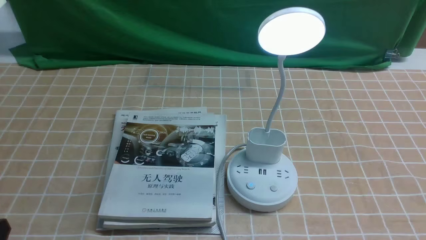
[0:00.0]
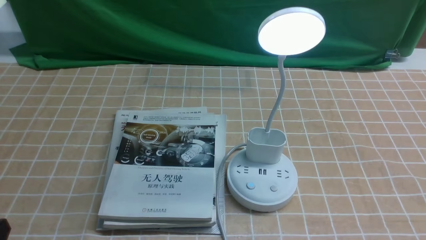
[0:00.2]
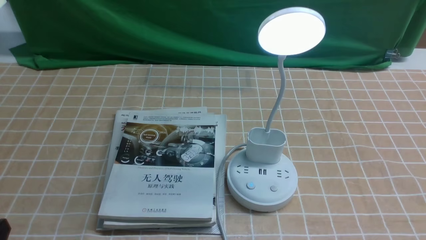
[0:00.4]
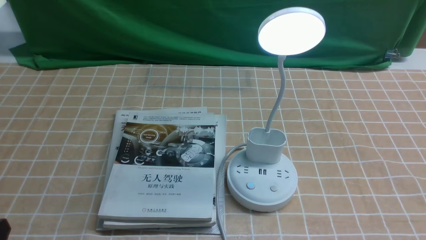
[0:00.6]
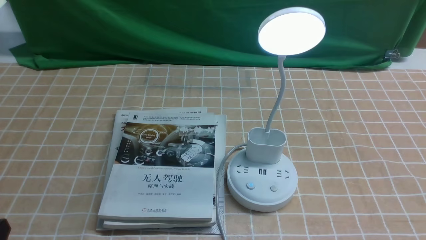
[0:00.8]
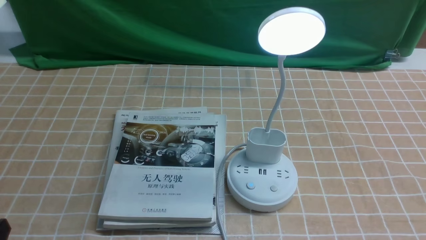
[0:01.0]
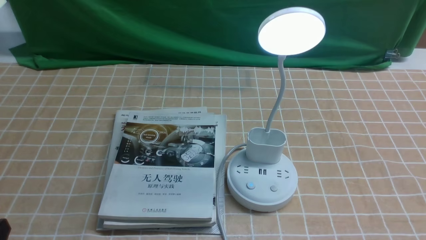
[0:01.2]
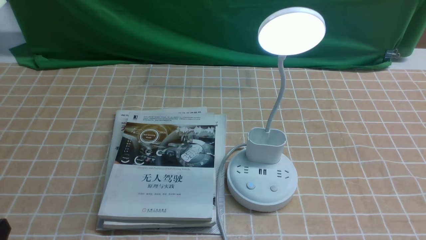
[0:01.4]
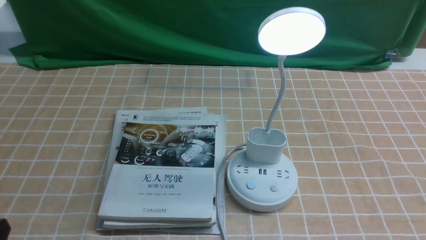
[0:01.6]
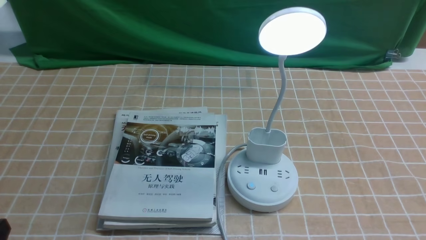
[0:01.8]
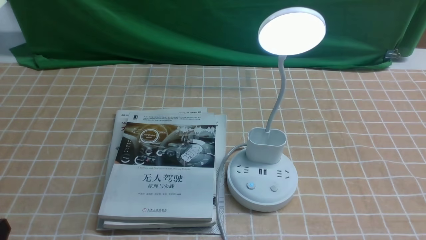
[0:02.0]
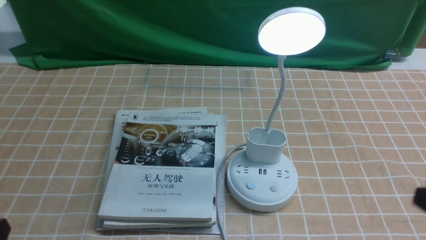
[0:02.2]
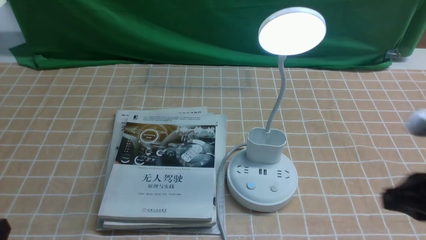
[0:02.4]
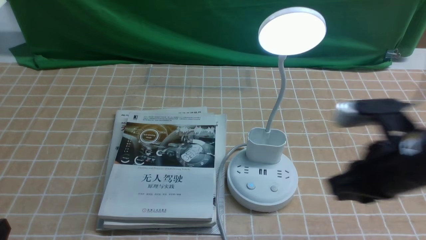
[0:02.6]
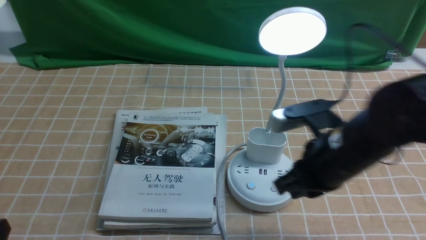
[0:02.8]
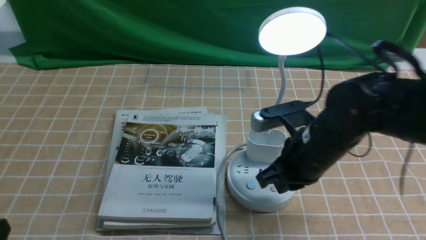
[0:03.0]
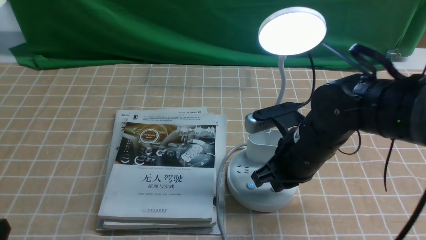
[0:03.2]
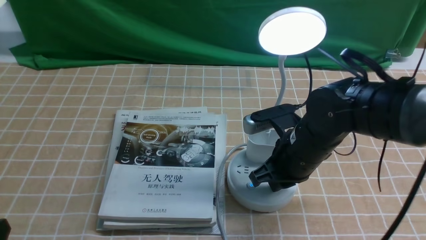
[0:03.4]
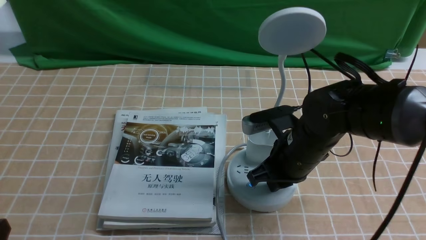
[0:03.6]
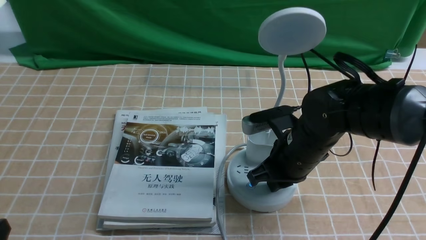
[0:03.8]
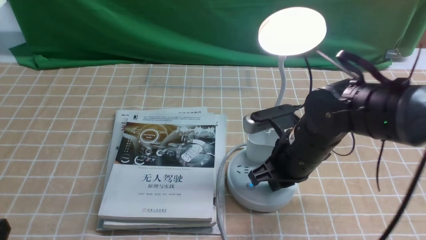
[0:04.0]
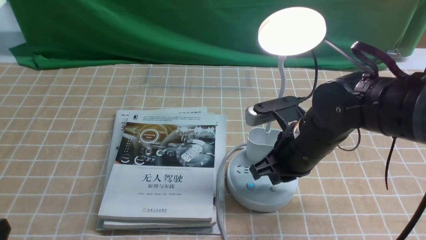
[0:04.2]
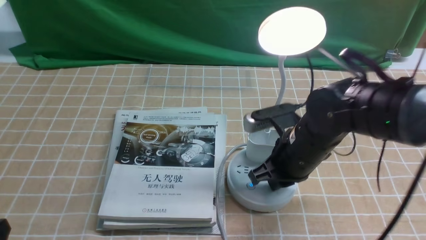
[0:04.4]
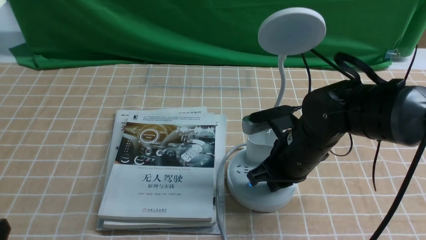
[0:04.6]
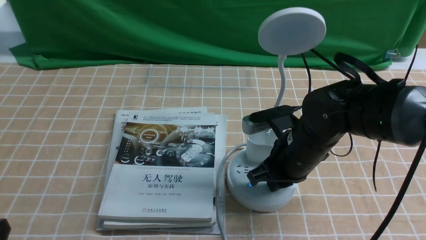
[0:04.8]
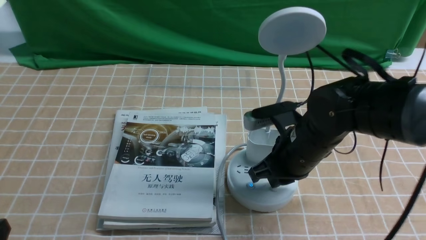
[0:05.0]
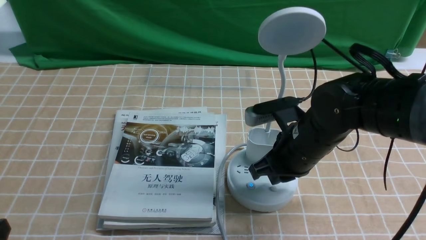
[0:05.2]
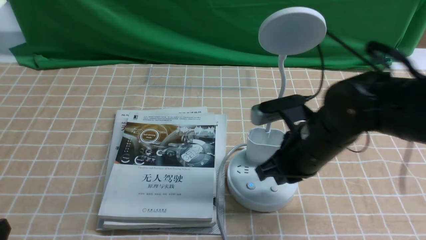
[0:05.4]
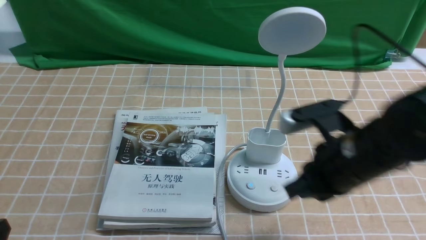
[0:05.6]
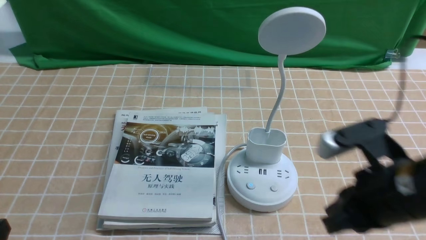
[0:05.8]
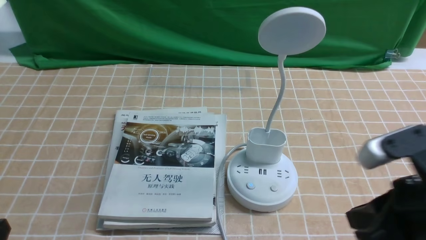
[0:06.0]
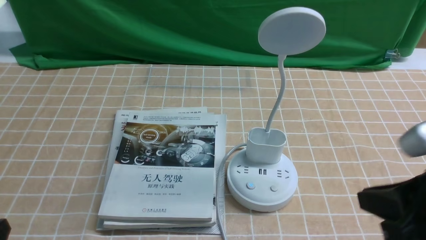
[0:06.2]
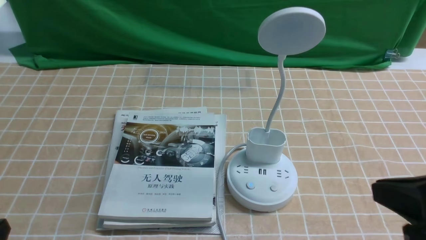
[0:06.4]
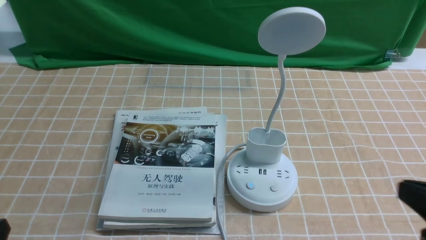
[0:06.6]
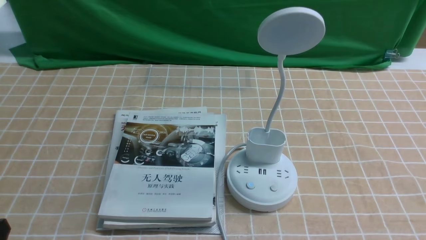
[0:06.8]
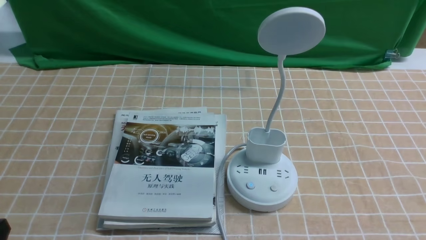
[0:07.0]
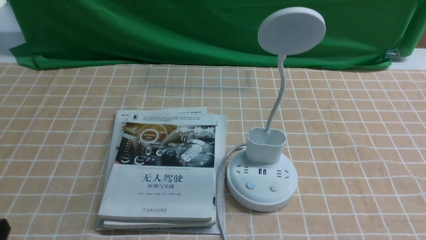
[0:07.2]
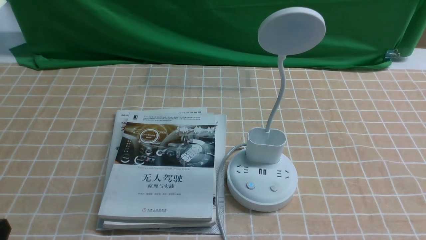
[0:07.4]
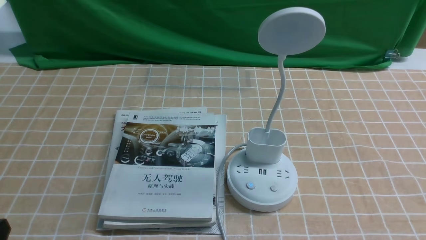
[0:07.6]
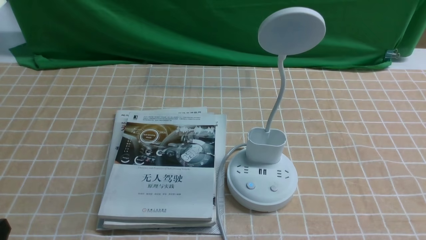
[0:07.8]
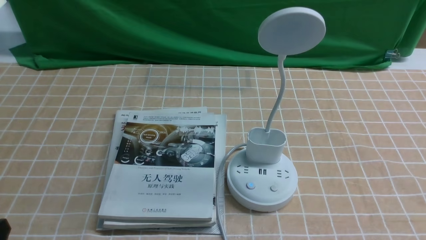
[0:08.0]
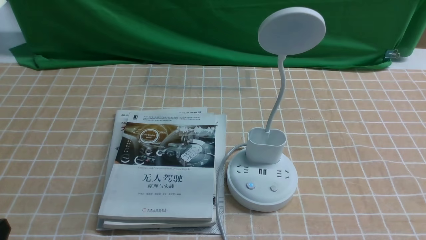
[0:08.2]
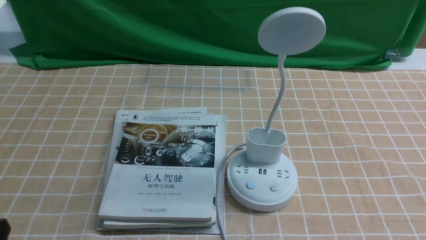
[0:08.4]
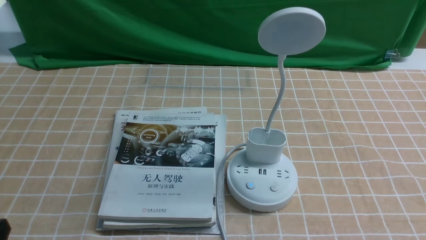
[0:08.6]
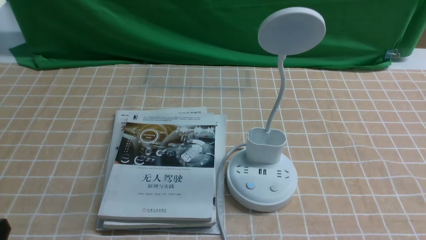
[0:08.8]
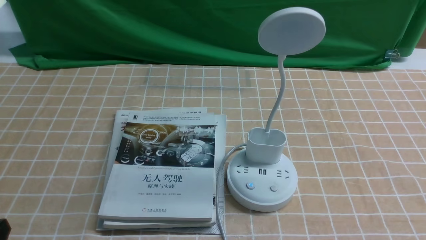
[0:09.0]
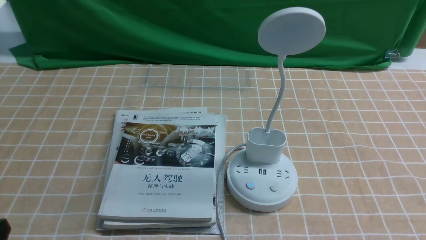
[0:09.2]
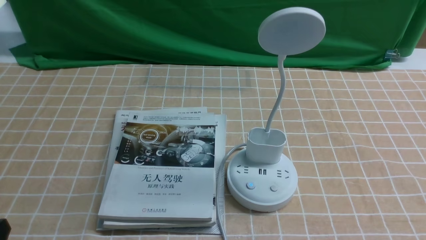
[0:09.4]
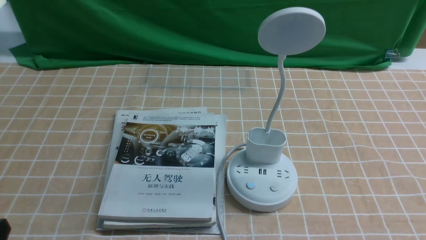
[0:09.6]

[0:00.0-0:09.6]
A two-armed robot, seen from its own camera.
Task of the whole recording: turn off the desk lamp on the light coffee tablecloth by hand.
Step, 0:00.0 to 0:05.2: use the right arm to press the button switch on the lamp holder.
0:01.6 to 0:03.2: The right gripper moves forward and to the left, approximately 30 cm, and closes up.
0:03.2 to 0:04.8: The grippers stay close to where they were, moving slightly.
0:04.8 to 0:06.4: The right gripper is displaced backward, to the right and upward by some 25 cm.
0:06.4 to 0:08.0: The right gripper goes approximately 15 cm downward, to the right and backward.

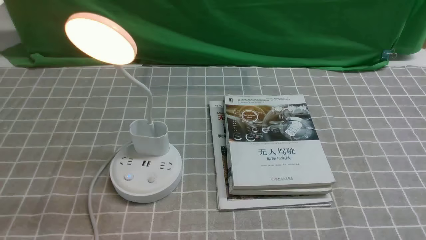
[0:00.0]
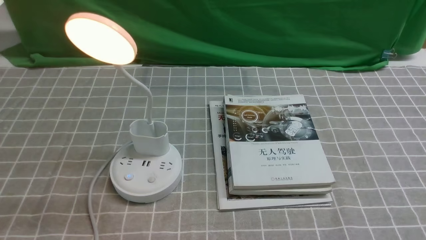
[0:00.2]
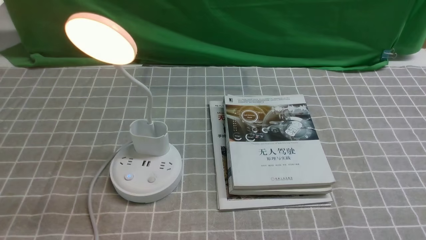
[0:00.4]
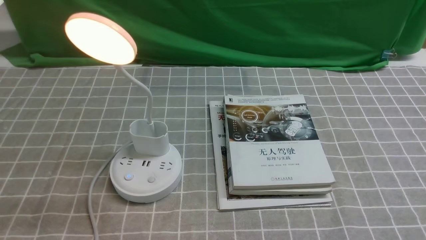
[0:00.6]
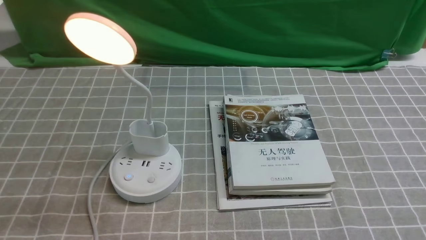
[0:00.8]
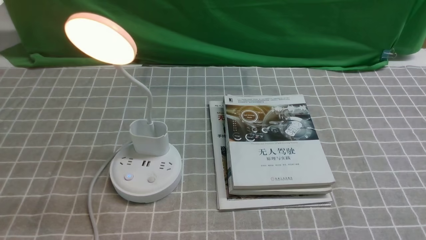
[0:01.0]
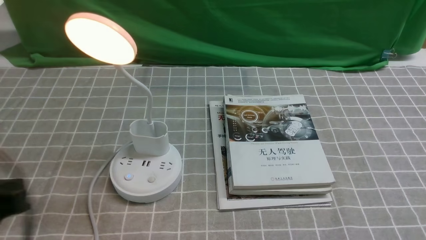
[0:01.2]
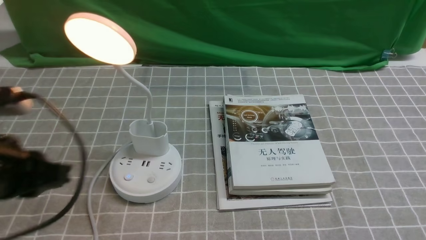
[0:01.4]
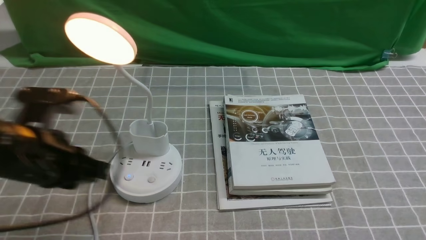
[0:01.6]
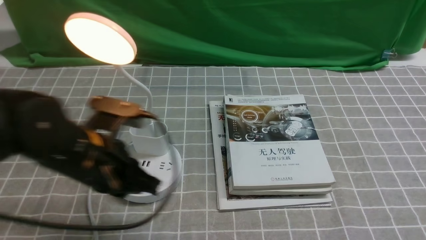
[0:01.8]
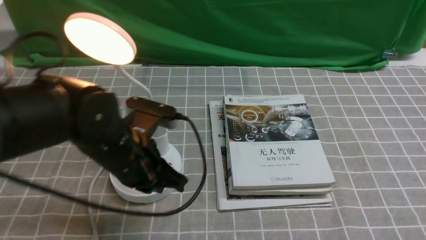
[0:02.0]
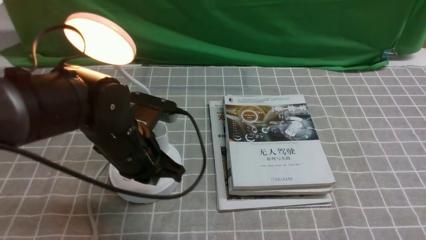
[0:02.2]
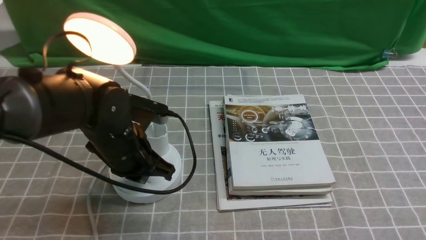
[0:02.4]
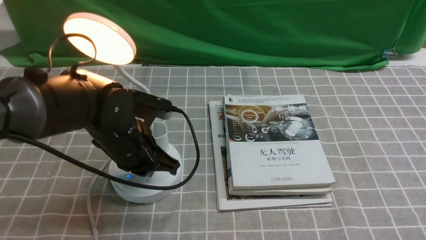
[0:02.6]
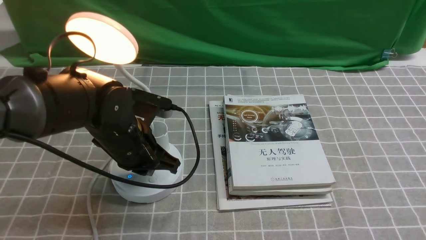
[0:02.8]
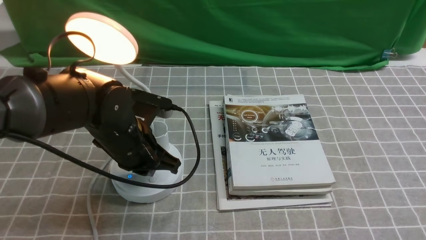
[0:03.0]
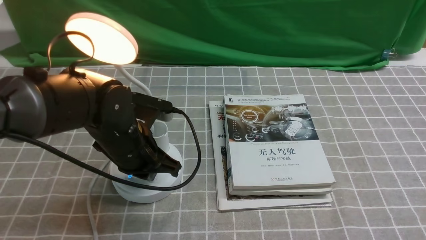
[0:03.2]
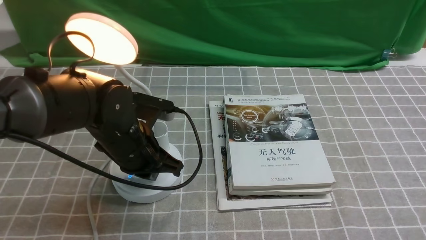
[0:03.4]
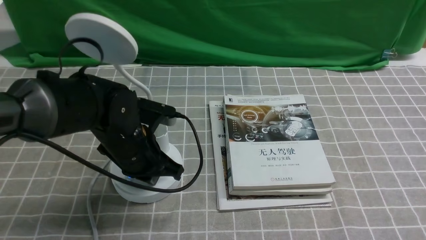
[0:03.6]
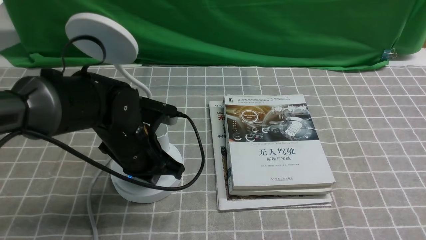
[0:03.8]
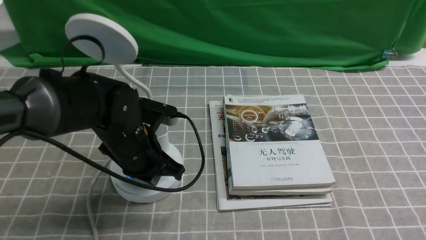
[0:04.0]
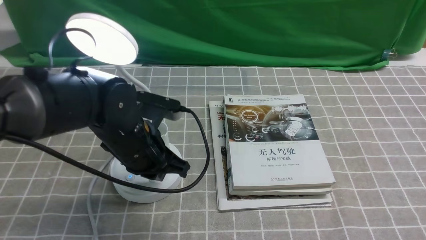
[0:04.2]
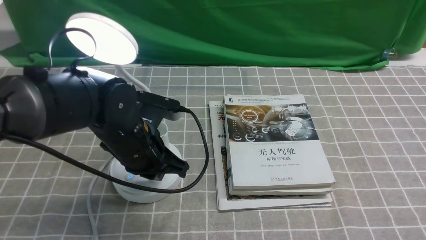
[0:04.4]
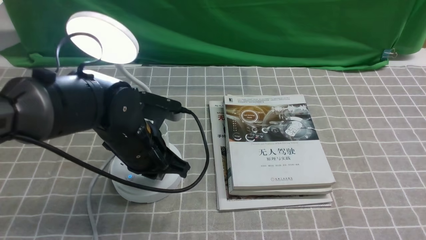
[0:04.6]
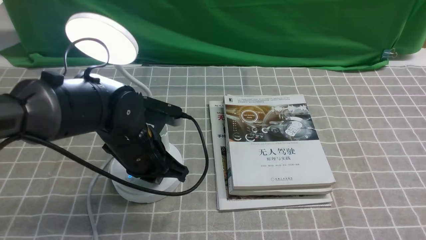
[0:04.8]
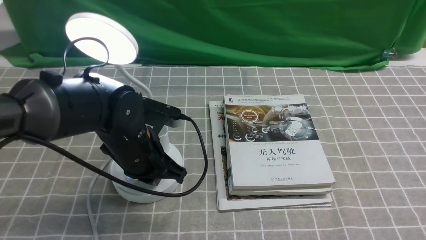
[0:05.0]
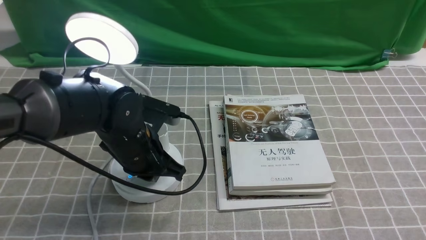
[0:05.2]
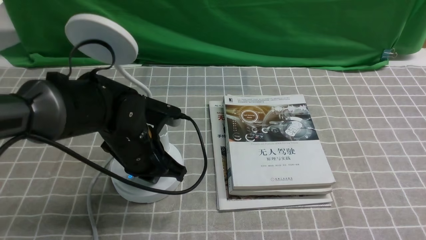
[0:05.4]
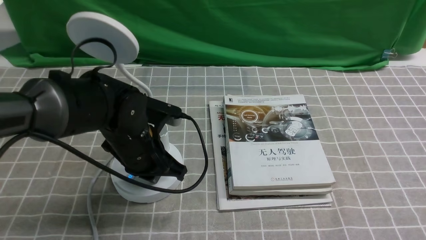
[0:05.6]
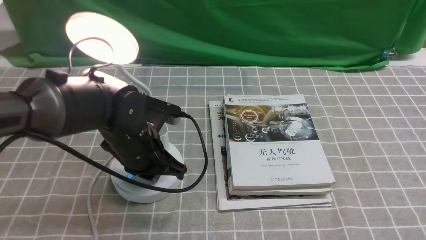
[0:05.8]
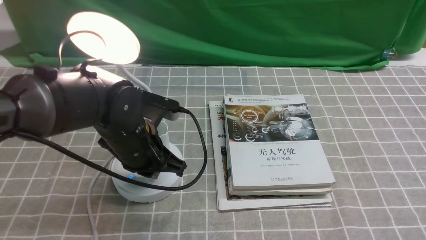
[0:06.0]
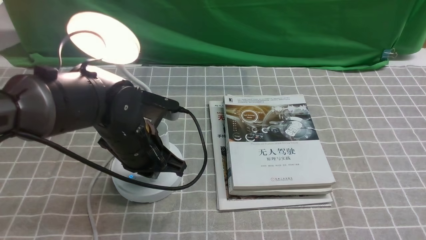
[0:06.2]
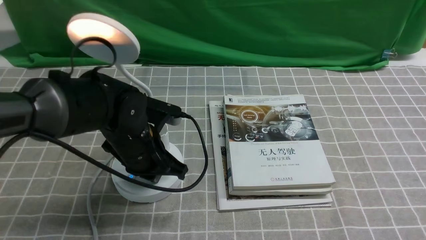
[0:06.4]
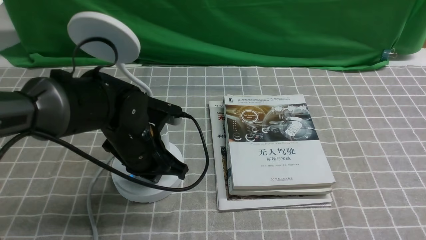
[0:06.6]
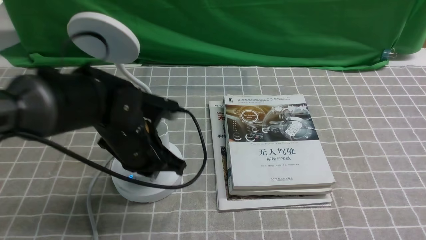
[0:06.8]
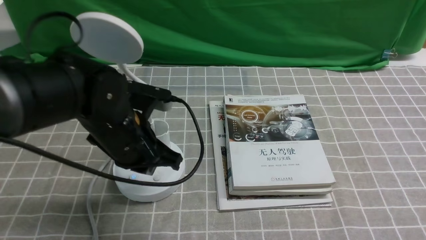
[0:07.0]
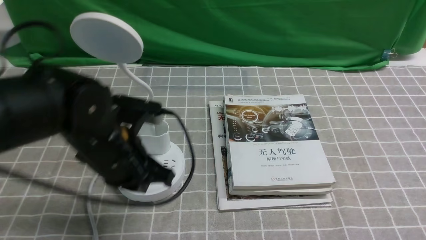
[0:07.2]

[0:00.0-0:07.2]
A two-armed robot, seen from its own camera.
Task of the whole recording: turn off the desk lamp on the grey coffee tablecloth by hand.
Step, 0:00.0 to 0:06.8: use the left arm to press the button switch on the lamp holder.
0:01.4 to 0:02.8: The left gripper is displaced forward, to the right and downward by approximately 20 cm, and closes up.
0:02.8 to 0:05.8: The grippers stay close to where they were, moving slightly.
0:05.8 to 0:07.2: The left gripper shifts by roughly 5 cm.
